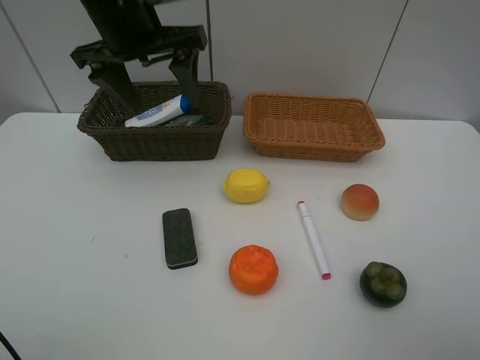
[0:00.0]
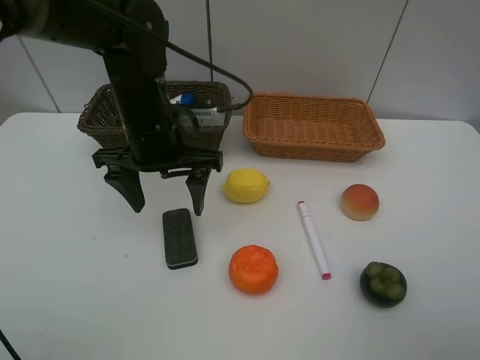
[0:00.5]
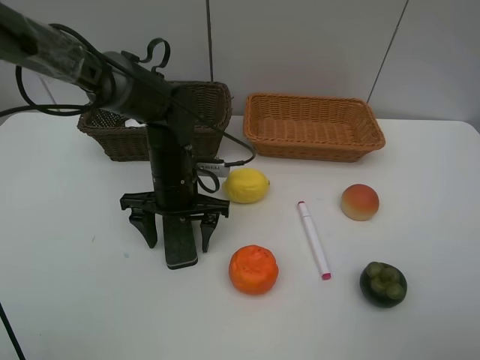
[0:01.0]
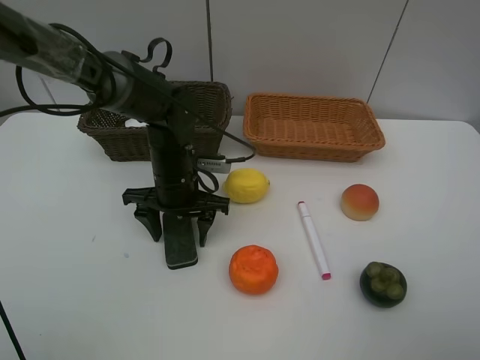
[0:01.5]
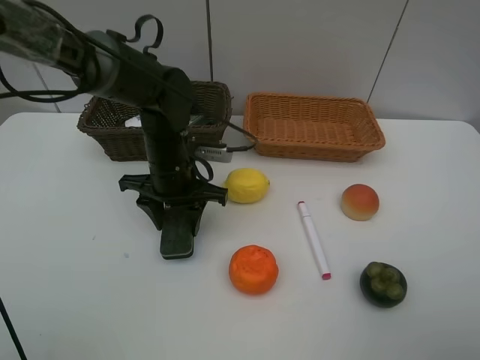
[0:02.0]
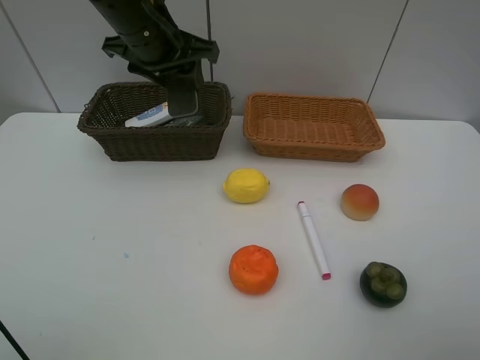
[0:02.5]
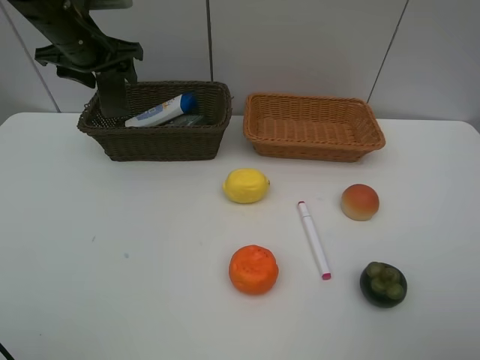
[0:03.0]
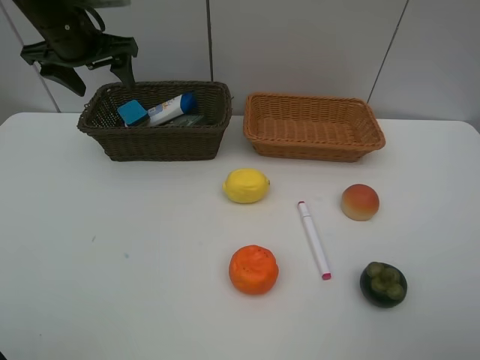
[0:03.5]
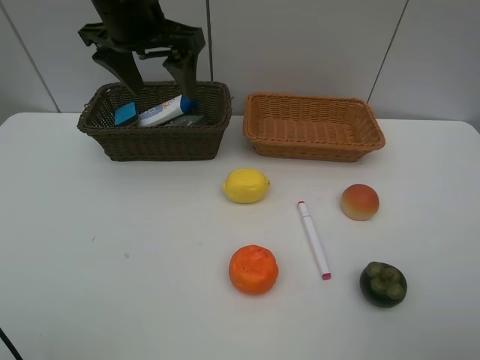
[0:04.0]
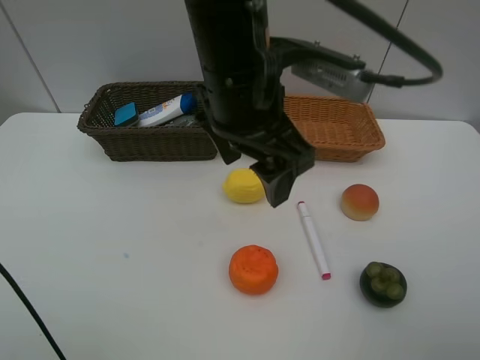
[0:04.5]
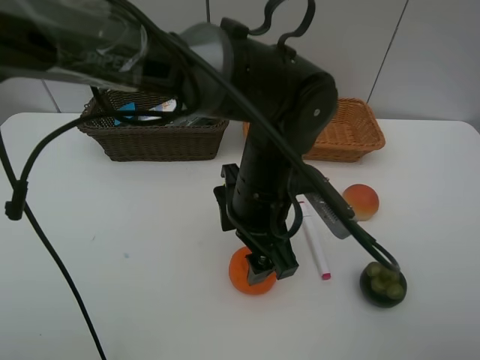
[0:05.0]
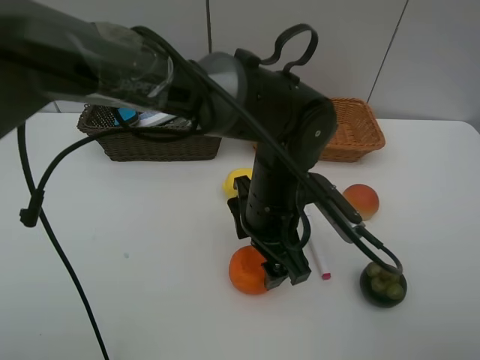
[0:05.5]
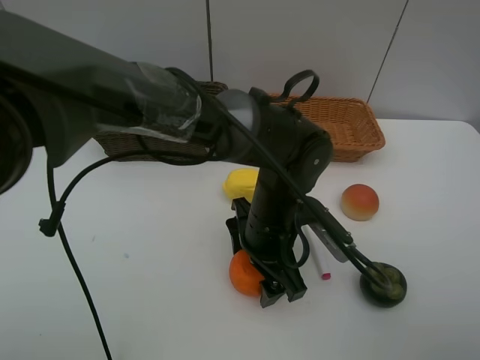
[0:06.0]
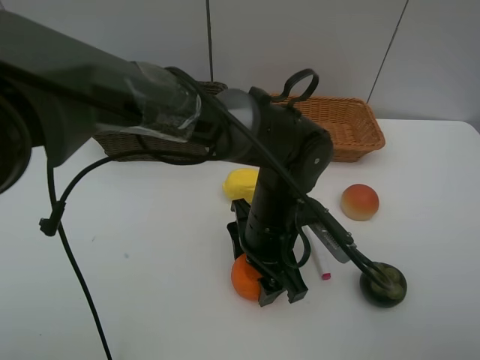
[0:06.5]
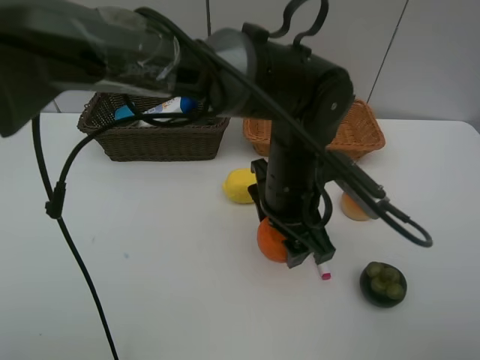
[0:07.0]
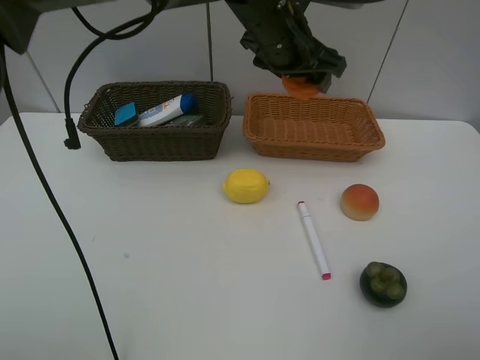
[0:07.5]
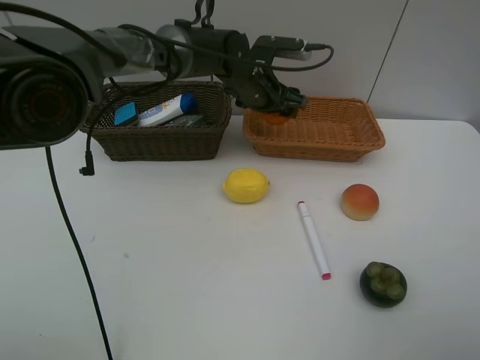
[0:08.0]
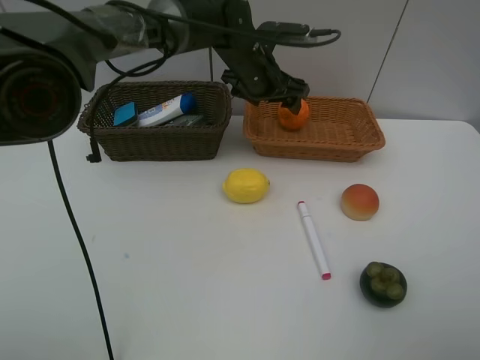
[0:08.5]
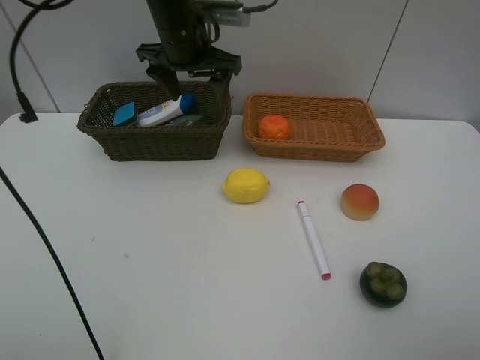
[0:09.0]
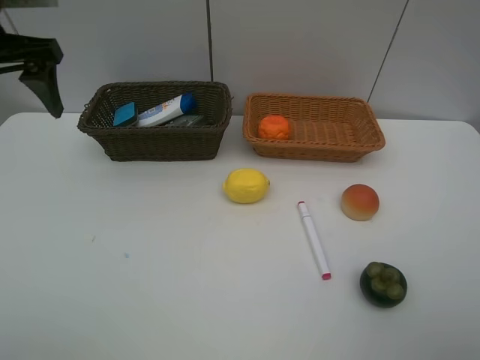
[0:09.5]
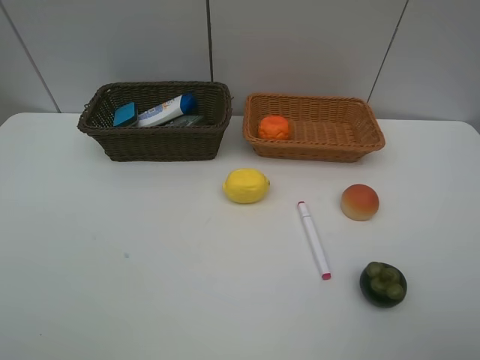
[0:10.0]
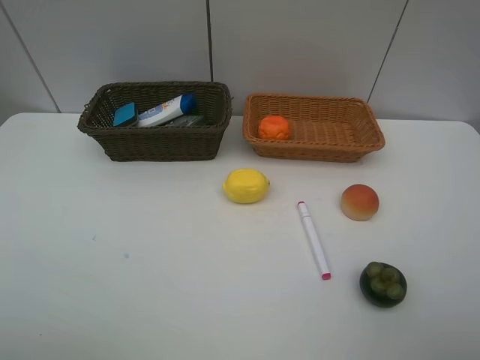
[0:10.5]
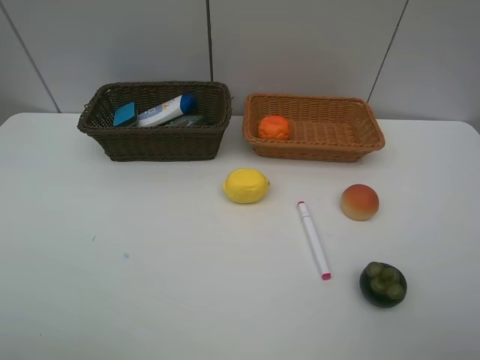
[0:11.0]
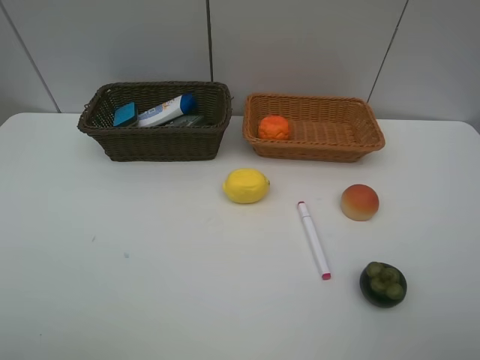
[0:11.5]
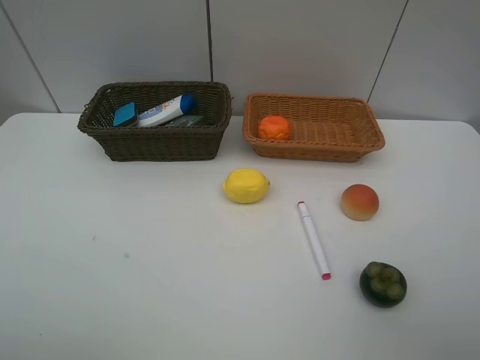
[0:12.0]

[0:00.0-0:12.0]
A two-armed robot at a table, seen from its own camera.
Task of the whole recording: Place multiple objects separately in different baskets.
Step, 0:00.0 to 0:02.0: Pick up blackboard eraser with left gripper.
Step, 0:02.5 to 0:03.0: Place the blackboard eraser in the dark basket with left gripper.
Step, 0:03.5 to 0:07.0: Pick up the orange with left gripper.
Step, 0:07.5 to 0:08.0: Place the orange in the light basket with left gripper.
0:00.0 to 0:02.0: The left gripper moves downward, roughly 15 cm, and closes.
0:02.0 to 0:04.0: The left gripper goes up and down, some 20 cm each way, reversing 2 times, and opens its fingers.
0:04.0 to 0:06.0: The left gripper is displaced downward, to the right and backward by approximately 30 cm.
0:06.0 to 0:08.0: The left gripper is displaced forward by approximately 25 cm.
0:08.0 to 0:10.0: The left gripper is displaced backward, to the left and upward by roughly 50 cm.

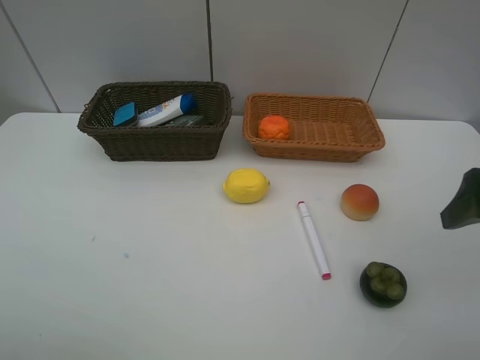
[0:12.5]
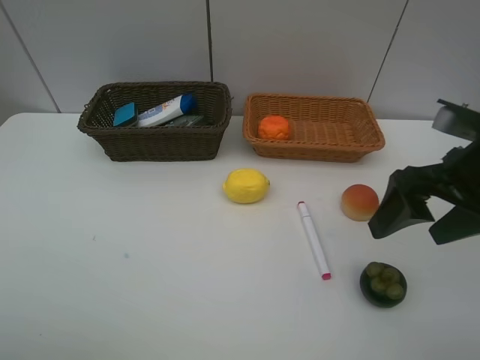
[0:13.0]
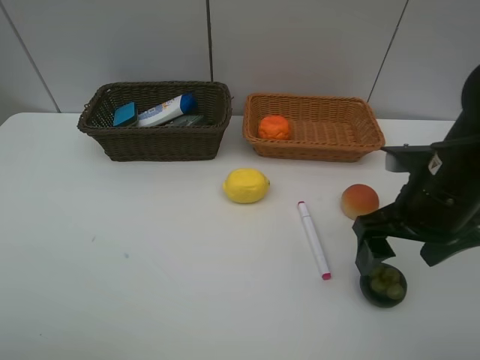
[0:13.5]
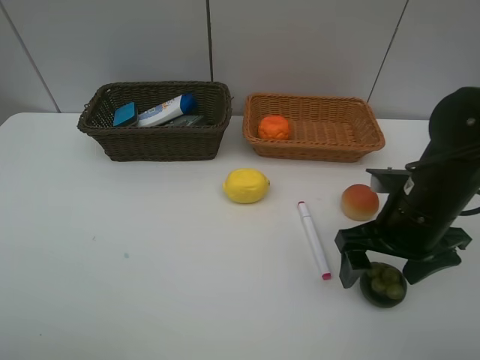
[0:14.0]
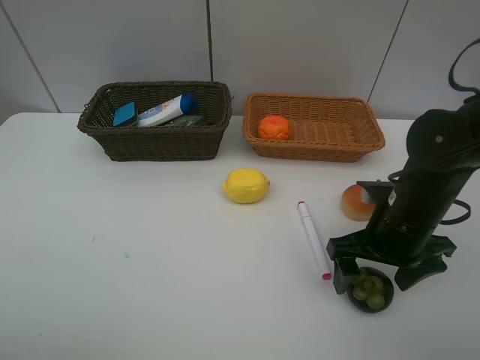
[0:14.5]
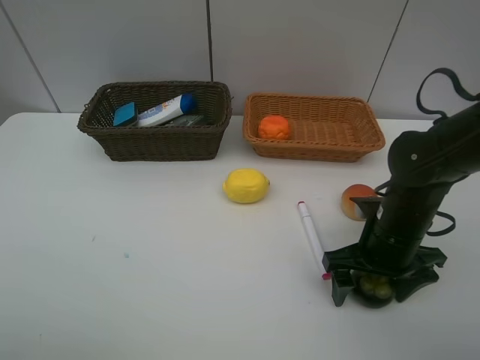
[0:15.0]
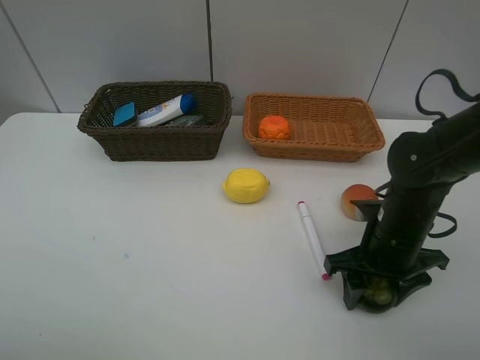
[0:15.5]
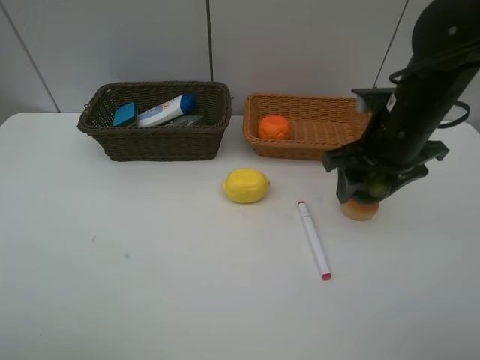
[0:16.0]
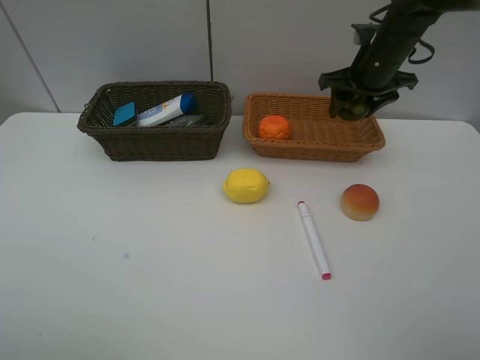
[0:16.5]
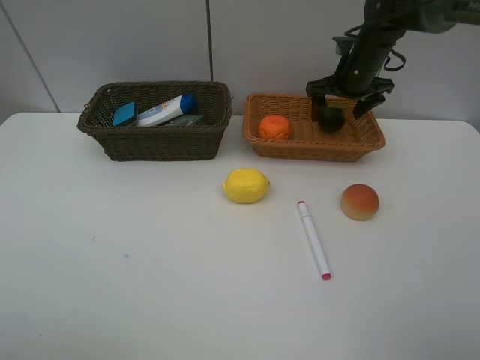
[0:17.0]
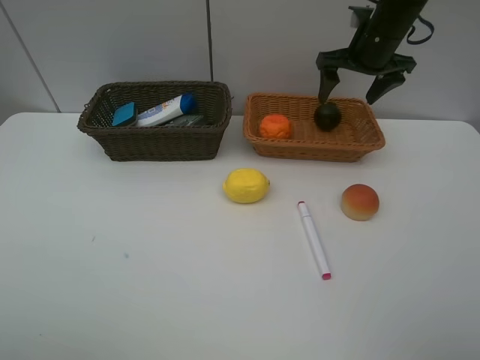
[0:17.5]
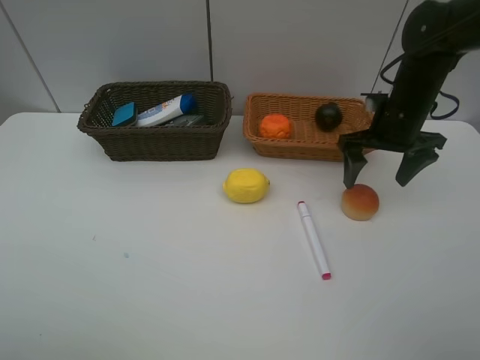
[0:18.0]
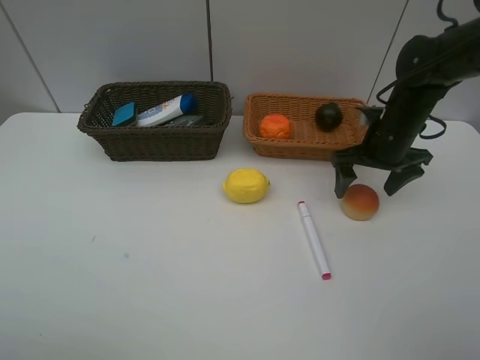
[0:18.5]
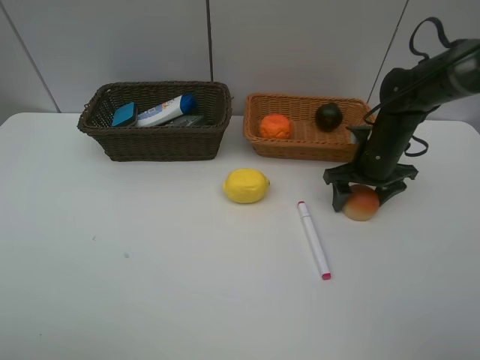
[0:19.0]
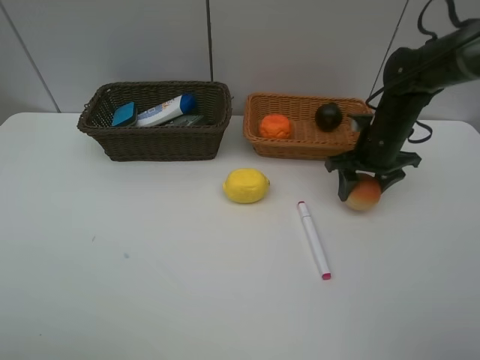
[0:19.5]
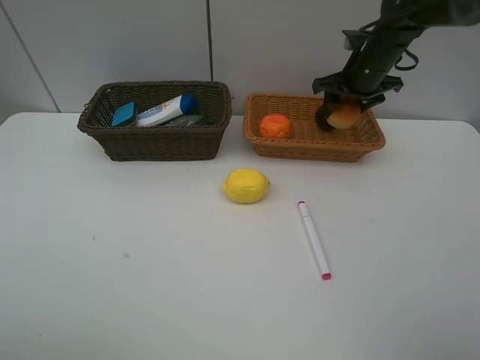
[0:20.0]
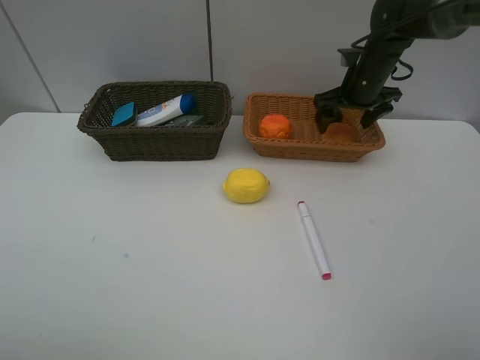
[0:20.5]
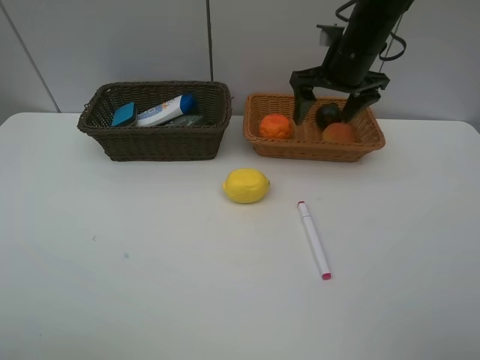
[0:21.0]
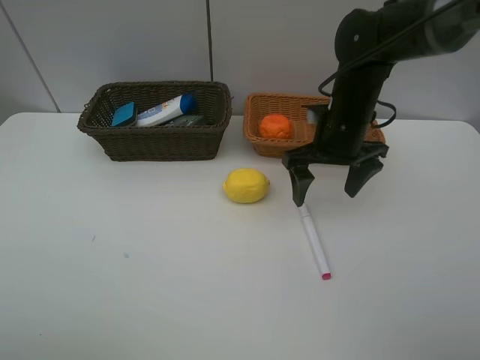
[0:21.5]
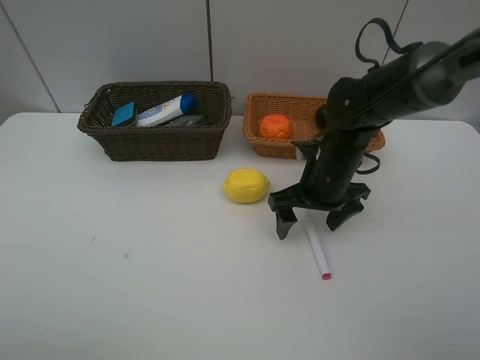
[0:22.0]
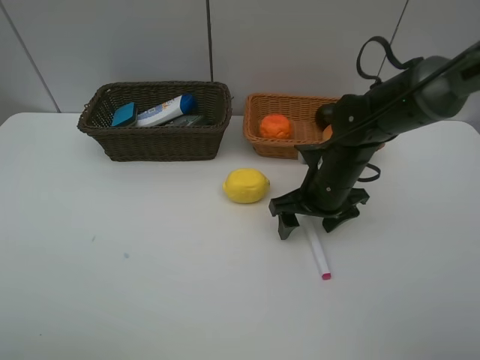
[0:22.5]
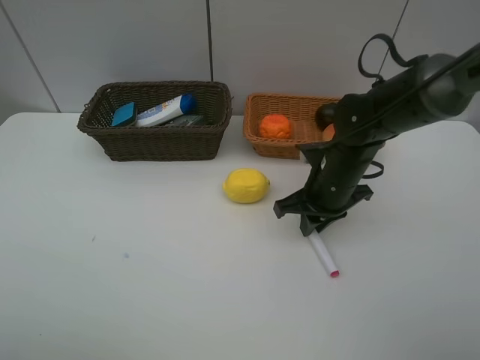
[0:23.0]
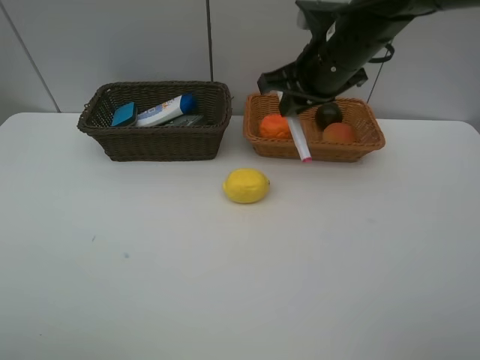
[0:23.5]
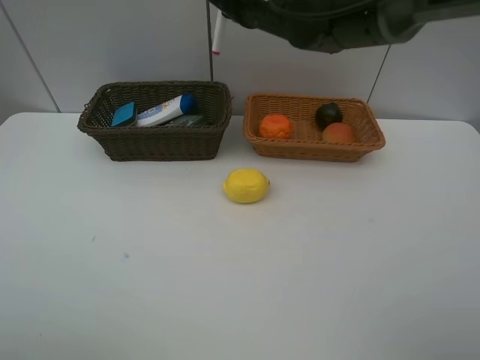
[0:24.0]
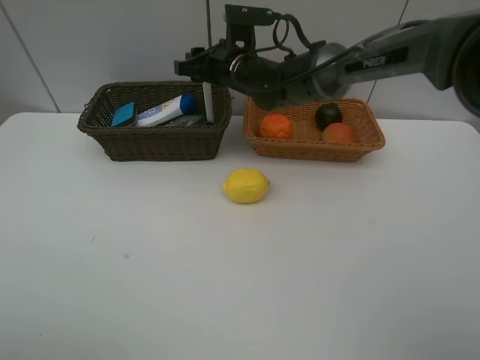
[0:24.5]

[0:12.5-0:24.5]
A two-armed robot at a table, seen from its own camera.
Task of the whole recording: Place multiple objects separately in different baskets.
Step, 0:12.5 to 0:15.5: Pick up the mangosteen with right gripper.
Step, 0:16.0 to 0:17.0: Place the mangosteen in the light basket with right gripper.
Step, 0:17.5 to 0:19.5: Pick up egg yolk pastry with right gripper.
Step, 0:20.0 to 0:20.5: Place the egg yolk pastry in the light basket with right gripper.
Step, 0:21.0 to 0:23.0: Pick up the red marker with right gripper.
0:12.5 to 0:14.5: The right gripper travels downward and to the left by some 15 cm.
0:14.5 to 0:16.5: The right gripper moves forward, some 25 cm, and closes.
0:16.5 to 0:18.5: The right gripper heads backward and downward, covering about 10 cm, and opens its fingers.
0:18.5 to 0:20.5: The right gripper shifts roughly 10 cm forward, and closes, then reopens.
0:20.5 to 0:22.5: The right gripper heads backward, to the left and downward, covering roughly 20 cm.
0:22.5 to 0:24.5: The right gripper heads to the left, forward and upward, covering about 20 cm, and closes and opens again.

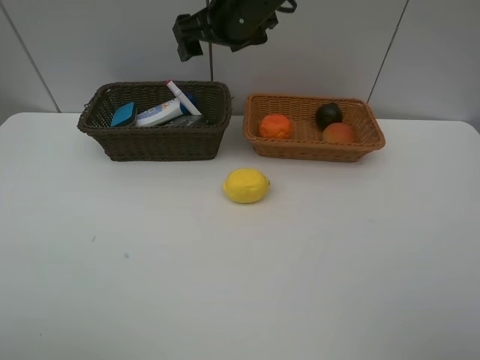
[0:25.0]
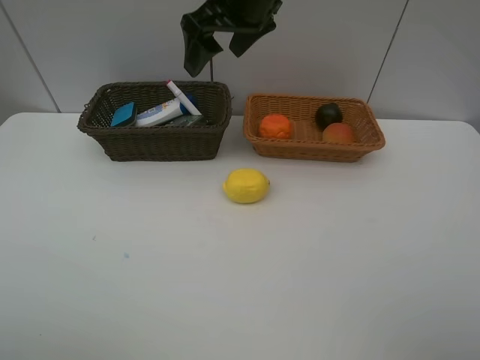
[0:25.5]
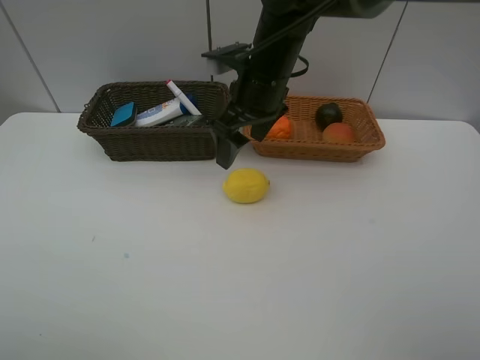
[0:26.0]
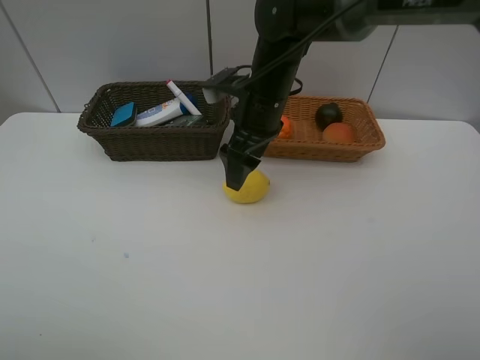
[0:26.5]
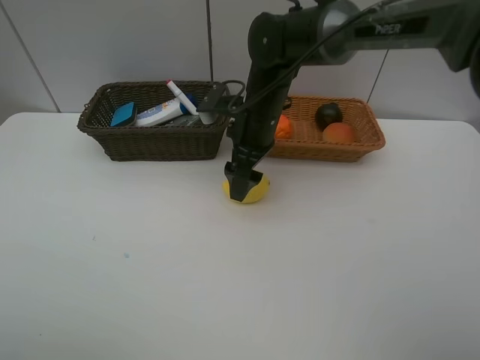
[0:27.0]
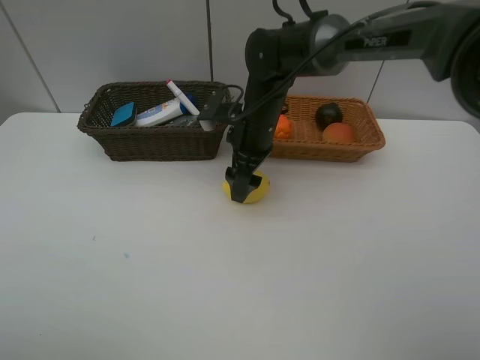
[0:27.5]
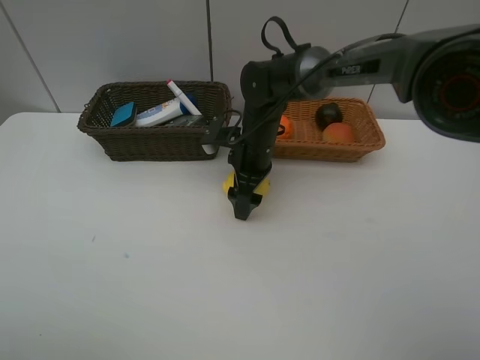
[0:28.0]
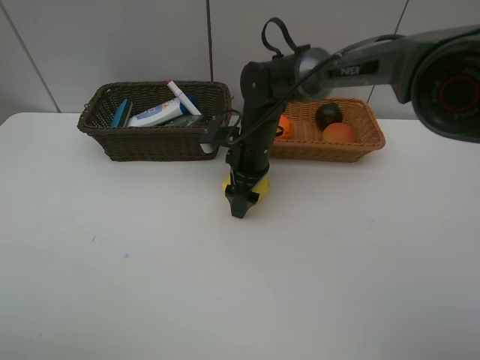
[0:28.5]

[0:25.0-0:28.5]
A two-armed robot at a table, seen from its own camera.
Task of the whole recording: Place multiple objects separately in different baskets.
0:25.0 to 0:27.0: The right gripper goes approximately 15 cm downward.
0:27.0 to 0:28.5: The right gripper goes approximately 5 cm downward.
